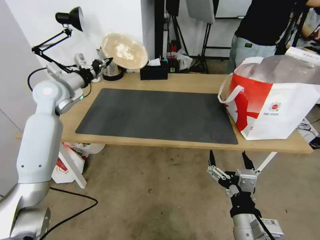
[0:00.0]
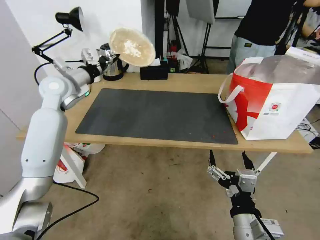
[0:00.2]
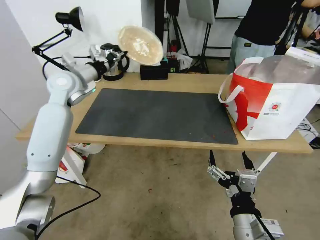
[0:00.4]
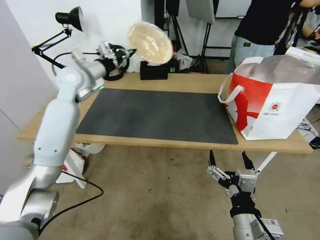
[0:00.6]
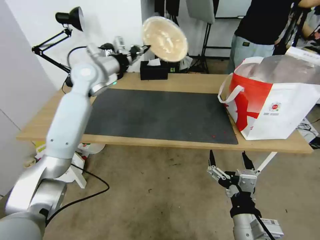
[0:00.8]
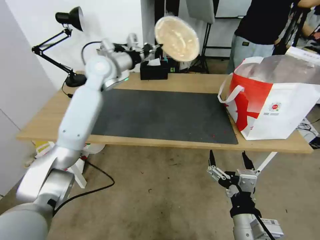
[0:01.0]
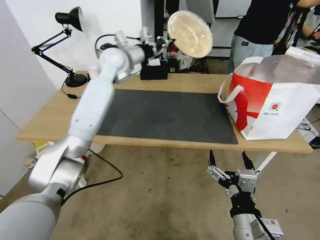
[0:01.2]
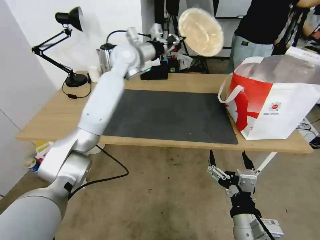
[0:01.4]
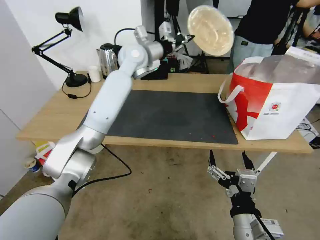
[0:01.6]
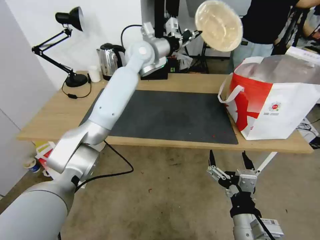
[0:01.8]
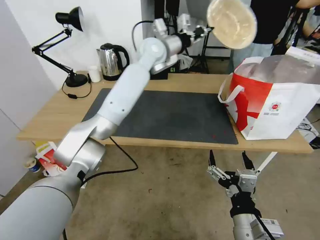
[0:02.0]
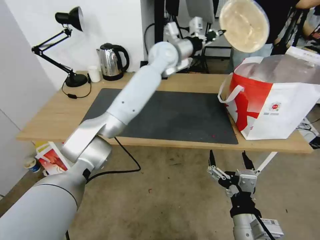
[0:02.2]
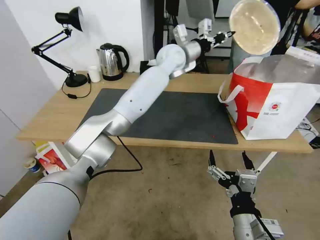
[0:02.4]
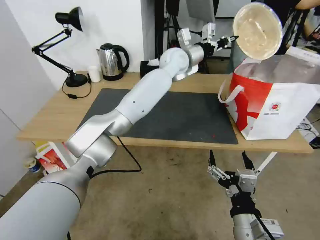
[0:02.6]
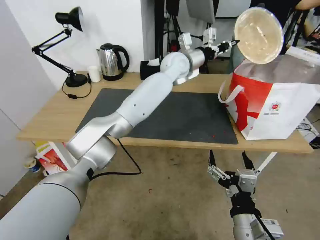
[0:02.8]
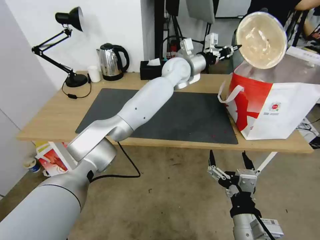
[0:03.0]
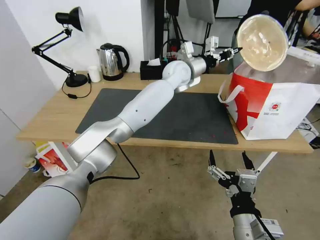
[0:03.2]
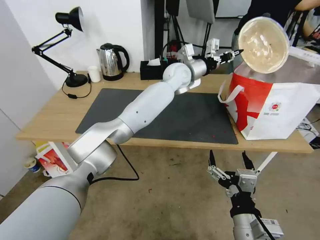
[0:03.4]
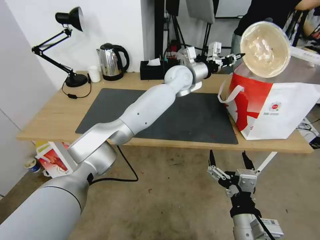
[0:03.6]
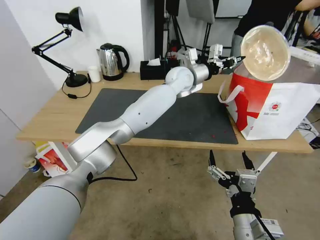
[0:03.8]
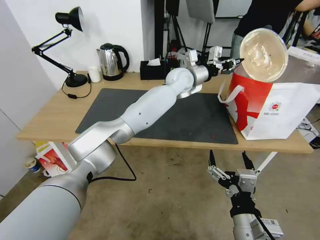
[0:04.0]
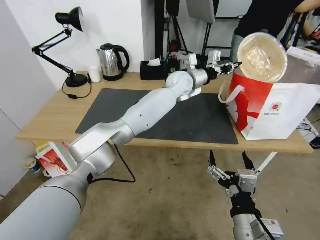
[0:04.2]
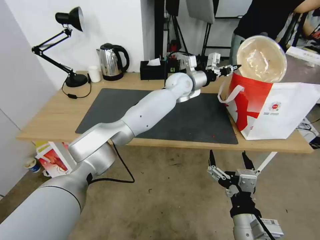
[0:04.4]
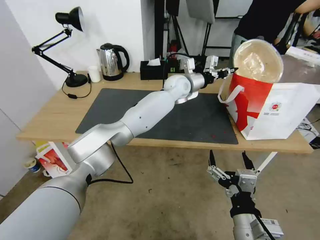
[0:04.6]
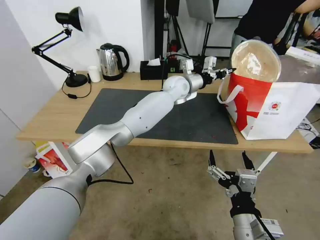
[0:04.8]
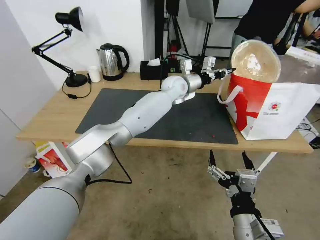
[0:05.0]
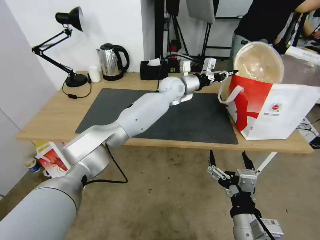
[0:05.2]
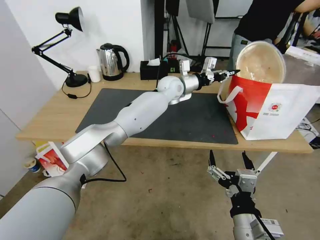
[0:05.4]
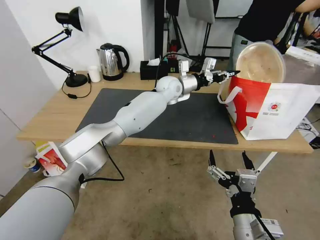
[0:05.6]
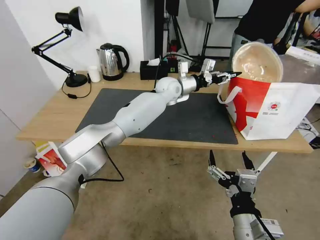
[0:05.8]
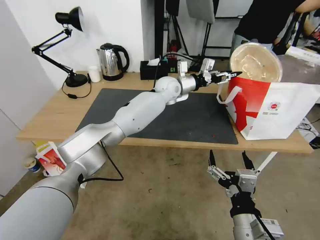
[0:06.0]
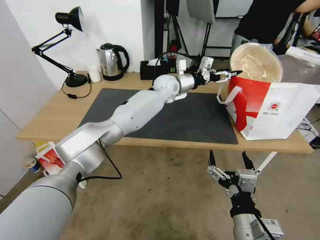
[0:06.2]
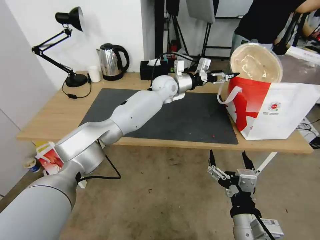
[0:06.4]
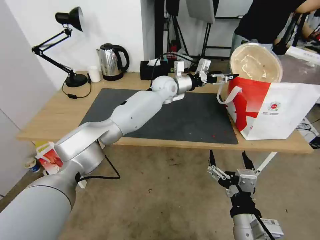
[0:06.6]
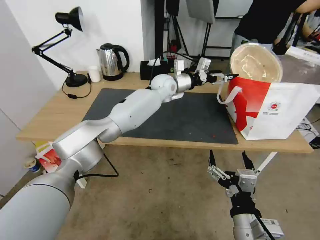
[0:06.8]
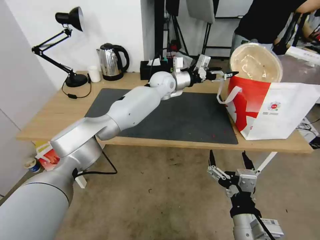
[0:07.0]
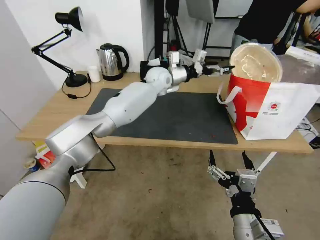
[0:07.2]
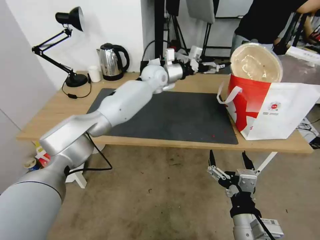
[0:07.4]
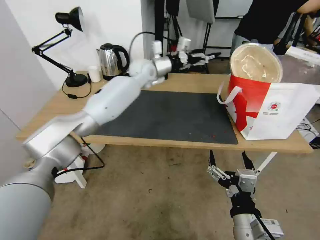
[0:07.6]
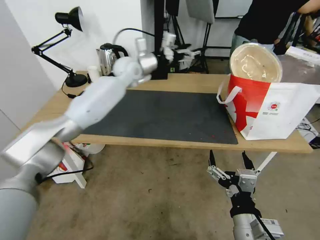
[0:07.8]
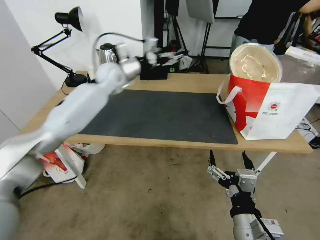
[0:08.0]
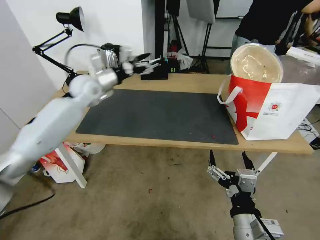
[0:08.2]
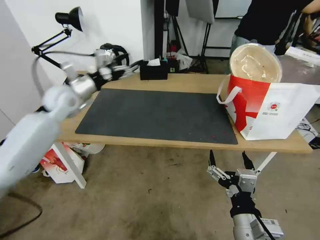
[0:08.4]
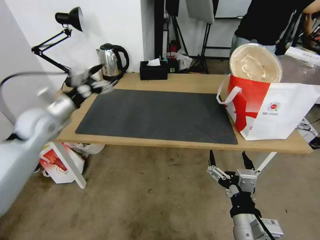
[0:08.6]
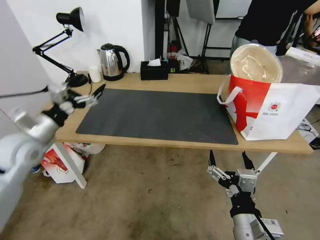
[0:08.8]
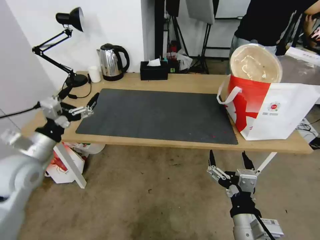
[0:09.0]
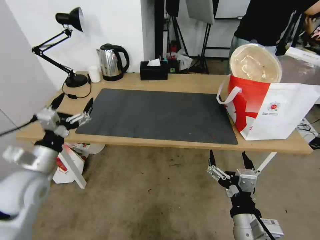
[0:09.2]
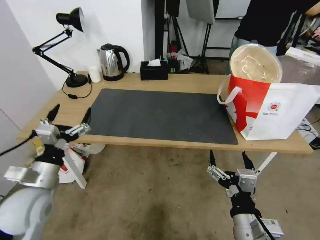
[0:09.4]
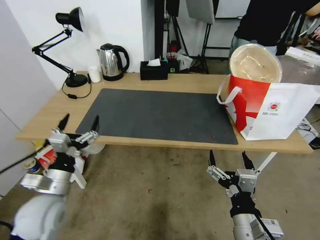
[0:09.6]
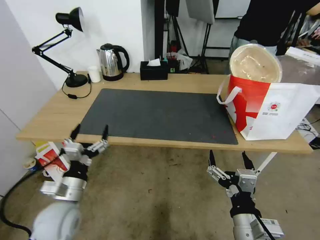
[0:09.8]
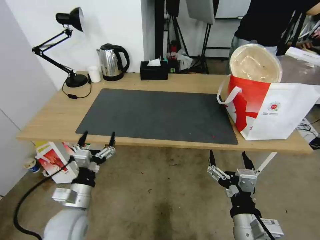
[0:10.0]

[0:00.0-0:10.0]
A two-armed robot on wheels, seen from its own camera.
Task of the whole recording: Pick up the trash from the table and place it into the takeout bag.
0:00.0 to 0:01.4: The left gripper heads to the right, covering some 25 cm.
0:01.4 to 0:02.8: The left gripper moves to the right, approximately 15 cm.
0:02.8 to 0:04.2: The left gripper heads downward, covering about 5 cm.
0:04.2 to 0:05.8: The grippers stay close to where they were, moving slightly.
0:05.8 to 0:07.2: The left gripper shifts by about 5 cm, and opens up.
0:07.2 to 0:08.6: The left gripper shifts some 40 cm to the left and backward.
0:08.6 to 0:10.0: The left gripper is displaced backward, downward and to the right by about 30 cm.

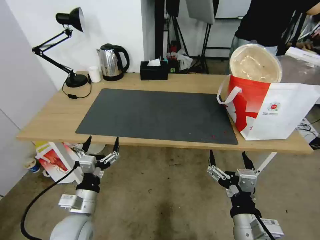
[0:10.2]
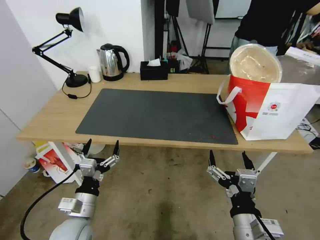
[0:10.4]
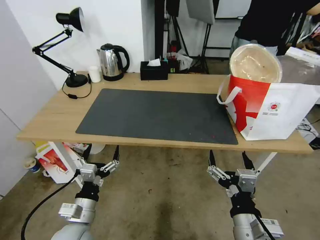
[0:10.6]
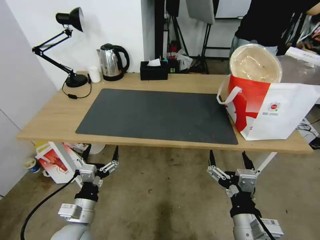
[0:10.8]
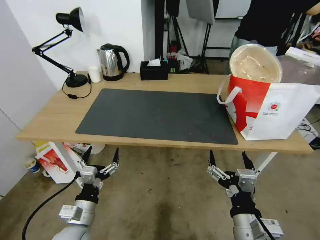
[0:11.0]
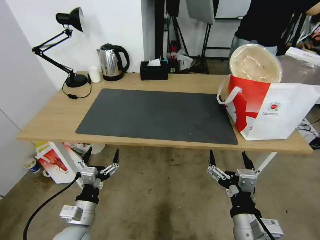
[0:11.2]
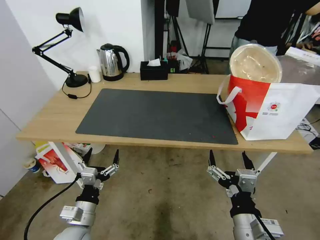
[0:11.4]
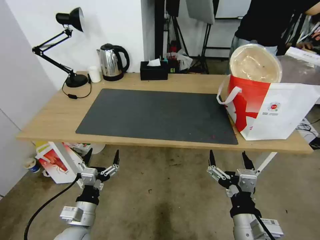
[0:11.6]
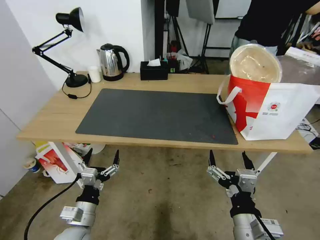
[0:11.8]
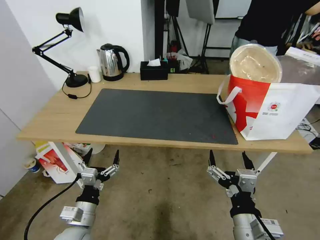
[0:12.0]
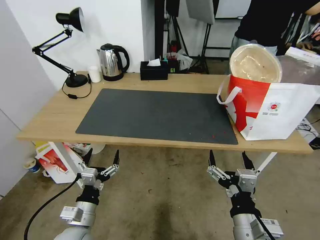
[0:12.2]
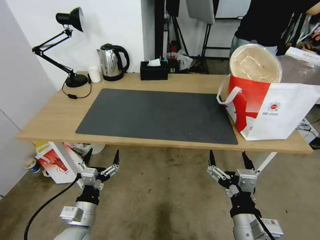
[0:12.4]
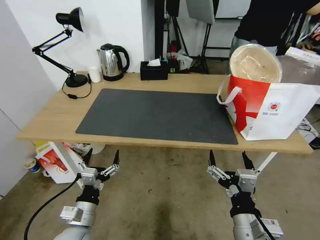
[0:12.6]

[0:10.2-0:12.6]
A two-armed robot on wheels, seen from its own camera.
Task of the whole recording: Pick up the trash from the table and place it into the takeout bag.
0:10.2 to 0:11.4: There are only small adjustments of the grippers.
0:11.4 to 0:12.6: The two grippers keep their place.
